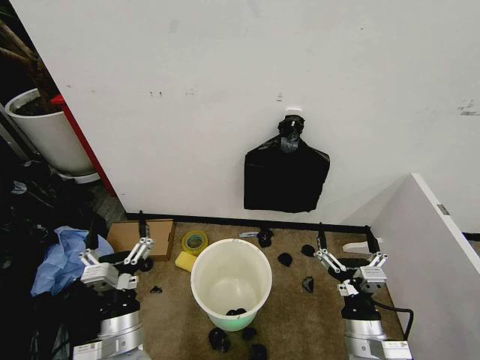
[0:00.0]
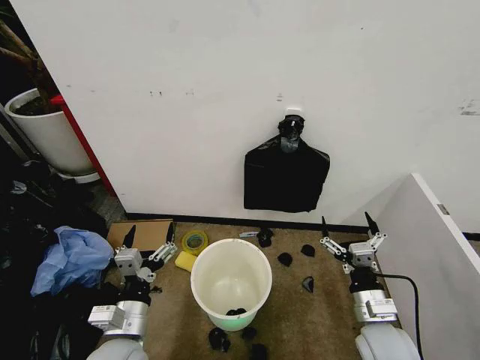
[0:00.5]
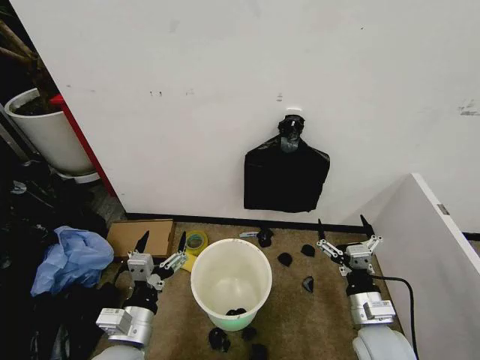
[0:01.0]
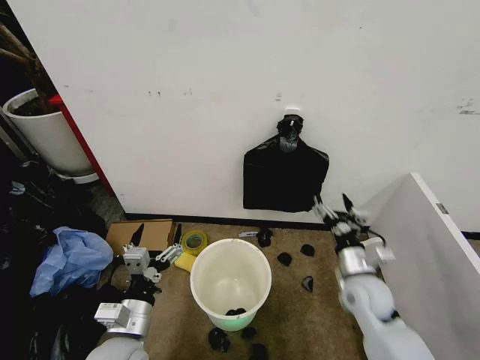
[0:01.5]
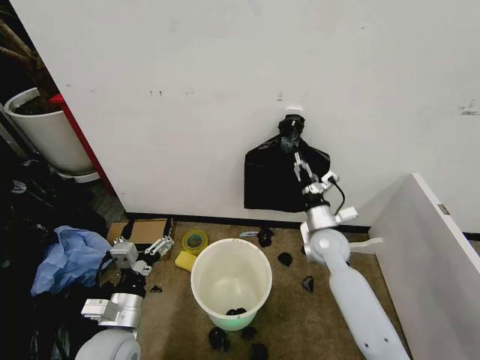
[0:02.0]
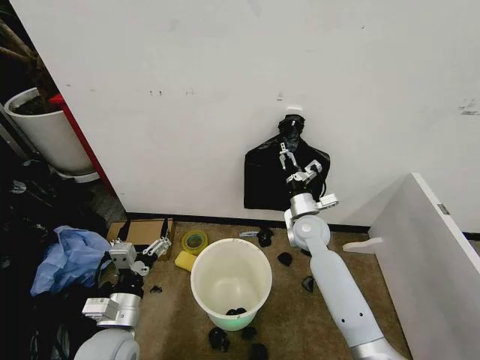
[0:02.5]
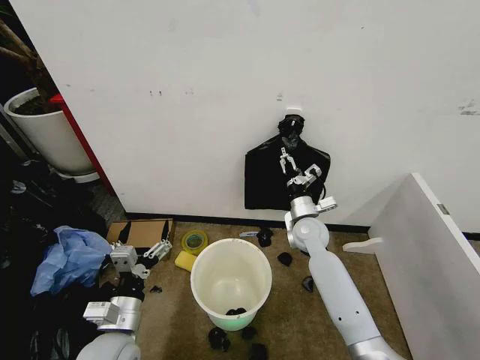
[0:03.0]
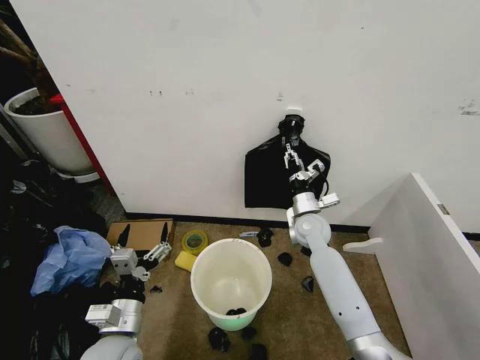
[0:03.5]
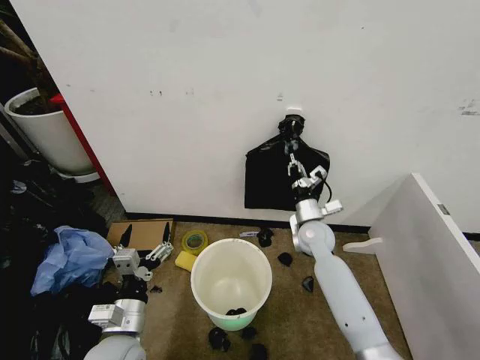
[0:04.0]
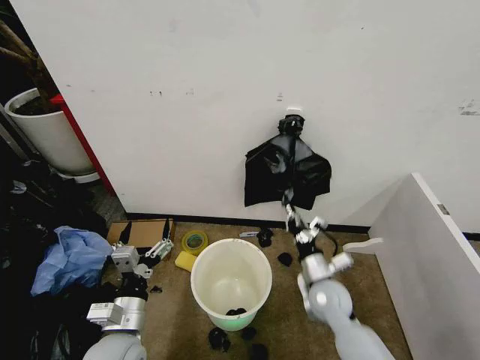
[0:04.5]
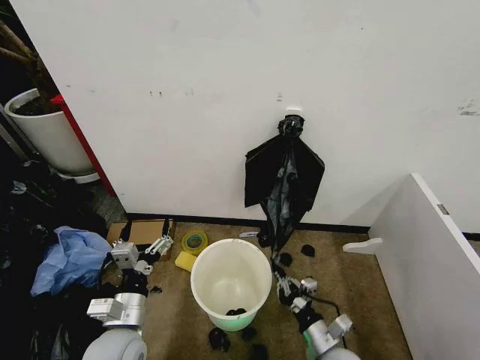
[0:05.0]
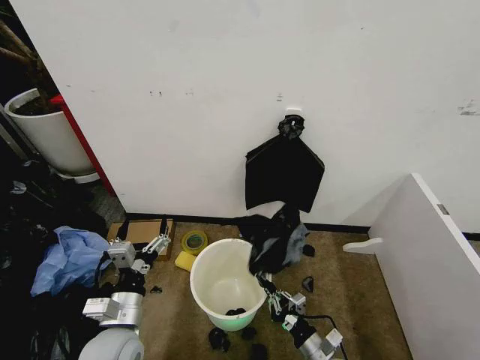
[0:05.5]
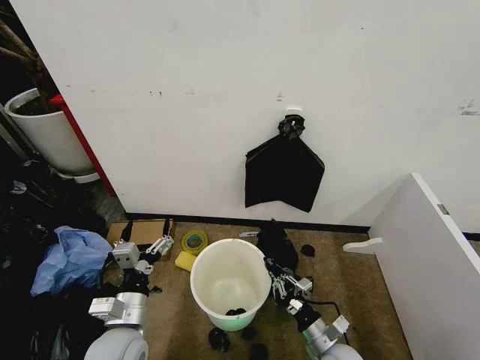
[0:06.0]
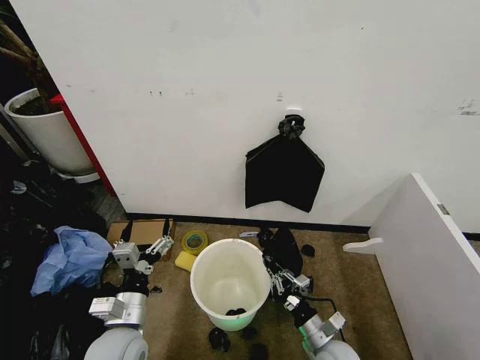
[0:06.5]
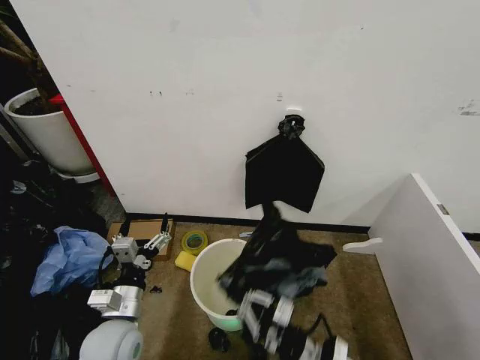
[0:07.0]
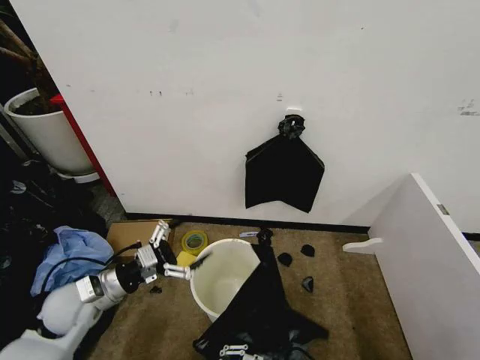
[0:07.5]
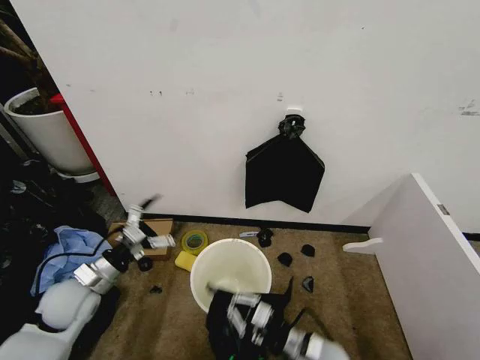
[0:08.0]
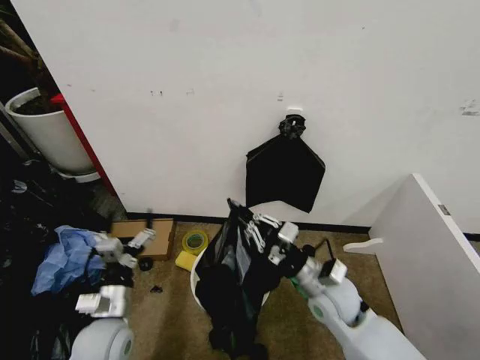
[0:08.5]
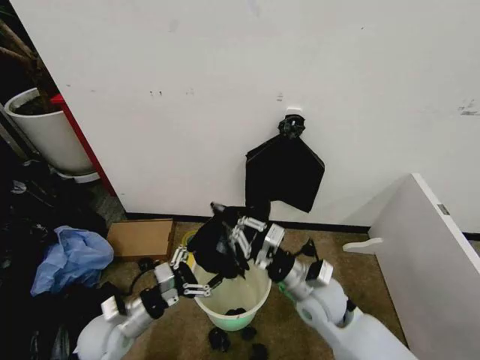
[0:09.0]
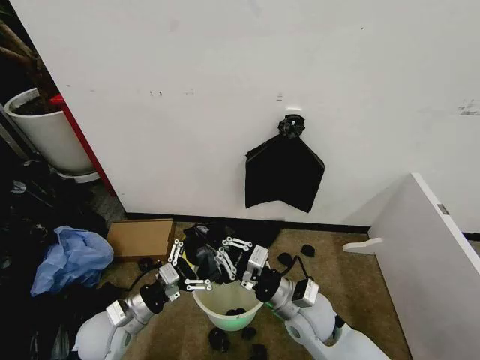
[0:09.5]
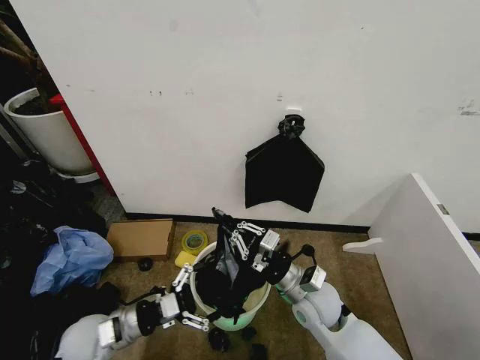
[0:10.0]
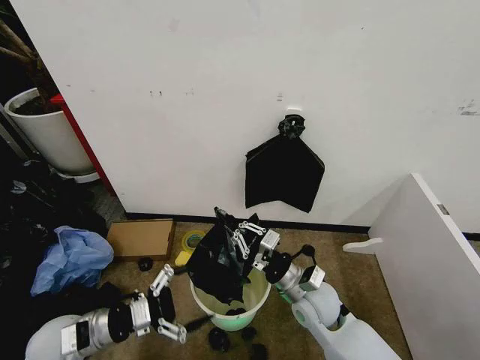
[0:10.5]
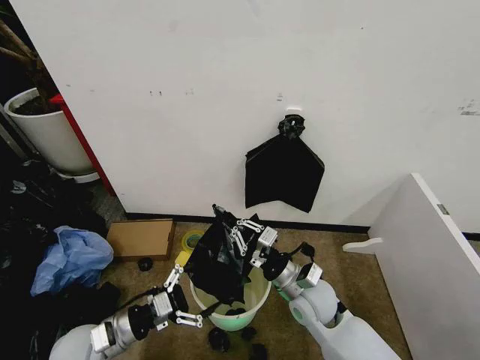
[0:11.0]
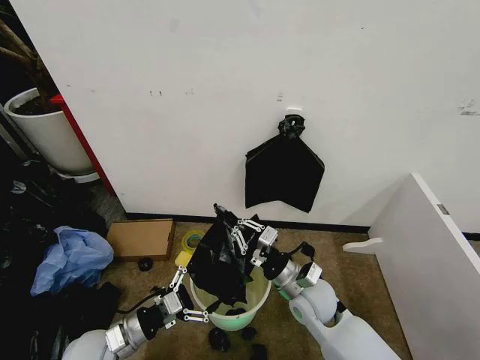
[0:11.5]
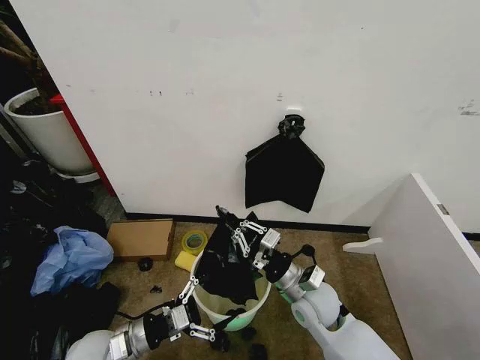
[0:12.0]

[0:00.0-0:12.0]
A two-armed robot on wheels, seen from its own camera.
Task of the whole recording: Place the garbage bag over the trash bin.
0:02.0 to 0:04.0: The right gripper closes.
0:04.0 to 0:06.0: The right gripper is displaced backward and downward by some 30 cm.
0:06.0 to 0:08.0: The left gripper travels to the left and forward by approximately 15 cm. The right gripper swings up and down, approximately 10 cm each way, with 2 reversals.
0:08.0 to 0:10.0: The right gripper moves forward and upward, about 10 cm. Meanwhile the left gripper moves backward, some 5 cm.
0:10.0 to 0:12.0: There are only small adjustments of the grippers.

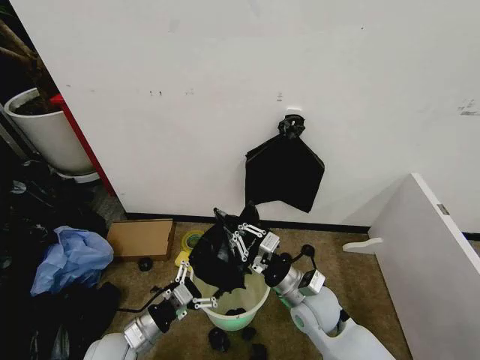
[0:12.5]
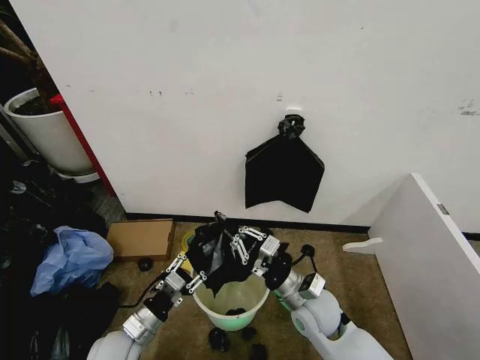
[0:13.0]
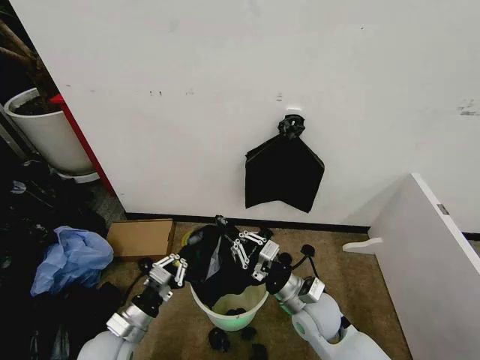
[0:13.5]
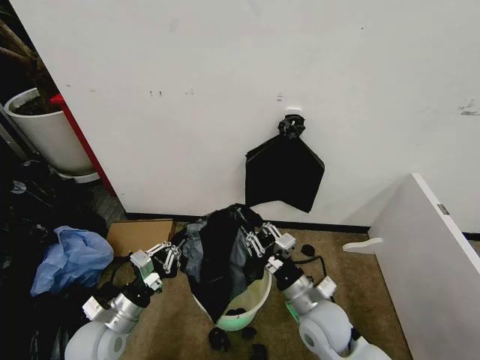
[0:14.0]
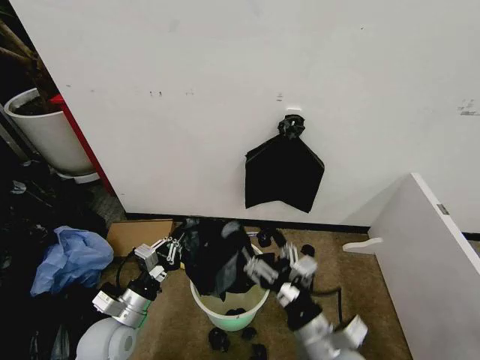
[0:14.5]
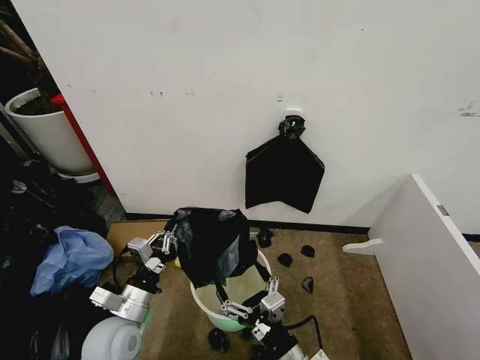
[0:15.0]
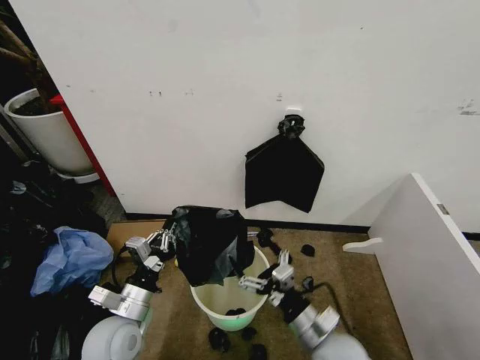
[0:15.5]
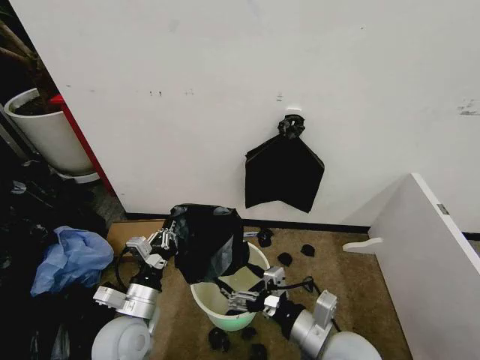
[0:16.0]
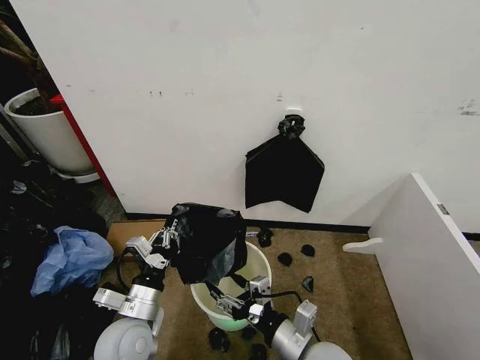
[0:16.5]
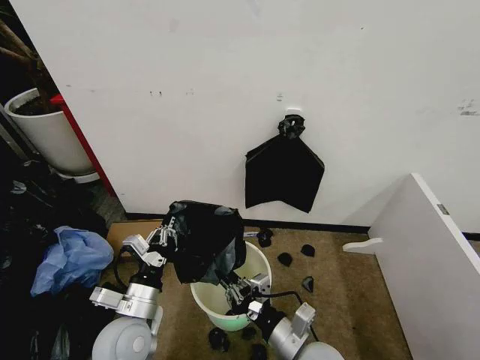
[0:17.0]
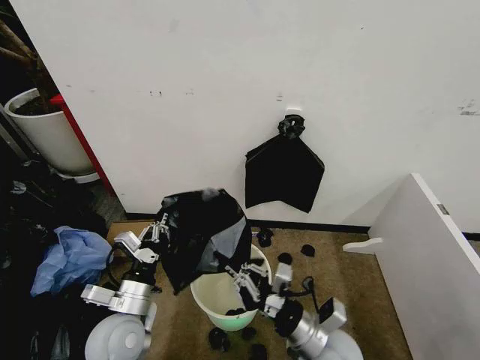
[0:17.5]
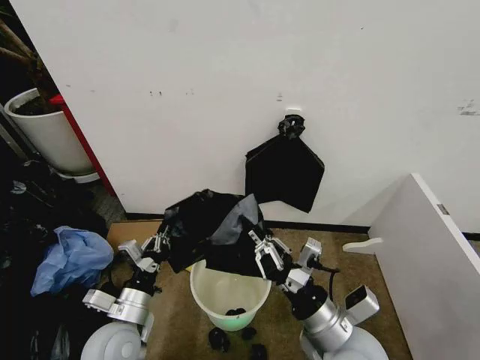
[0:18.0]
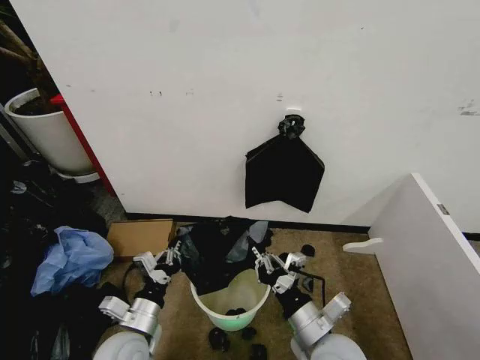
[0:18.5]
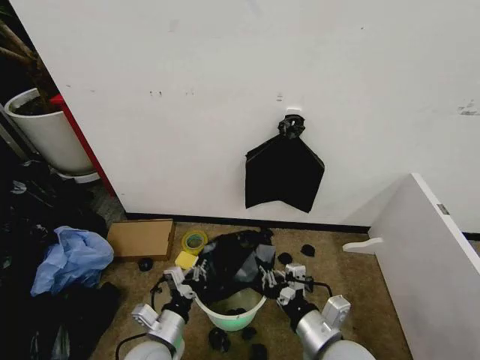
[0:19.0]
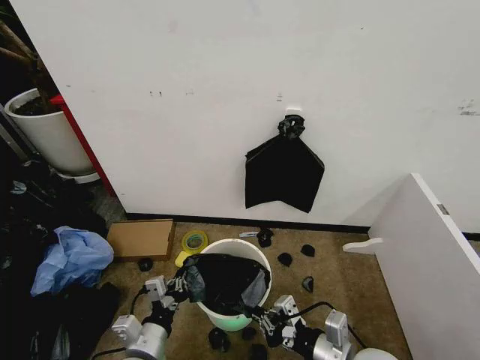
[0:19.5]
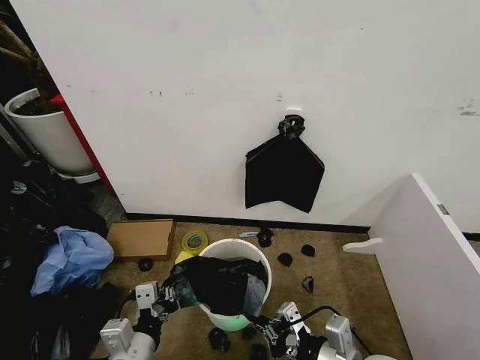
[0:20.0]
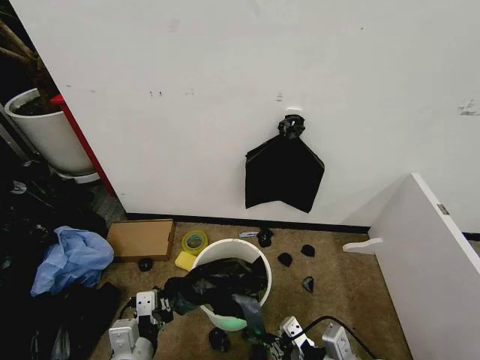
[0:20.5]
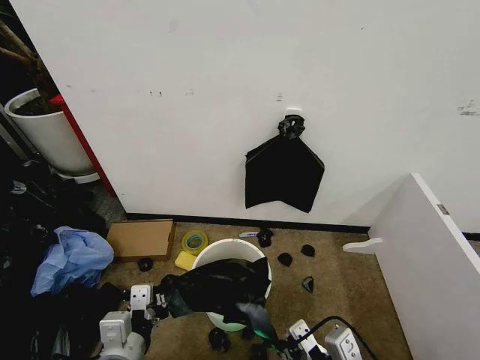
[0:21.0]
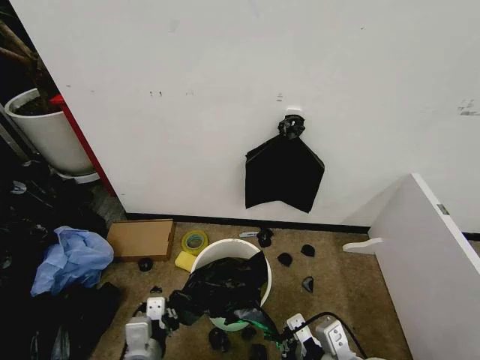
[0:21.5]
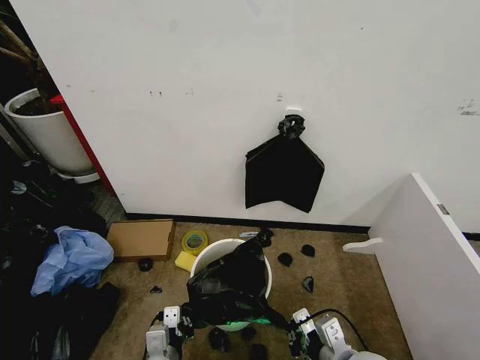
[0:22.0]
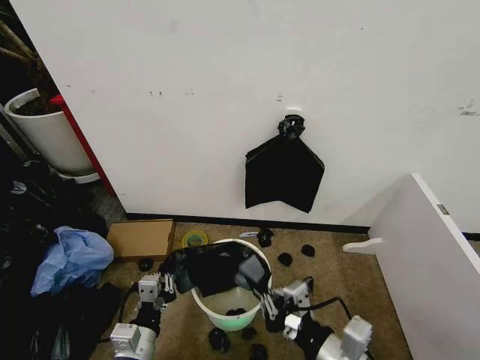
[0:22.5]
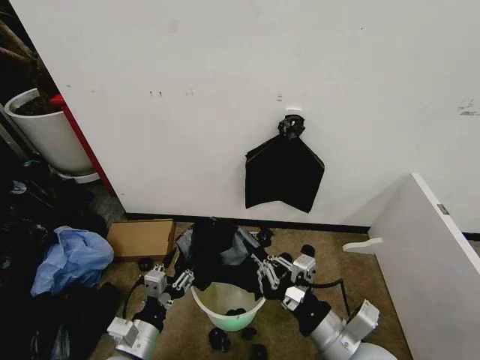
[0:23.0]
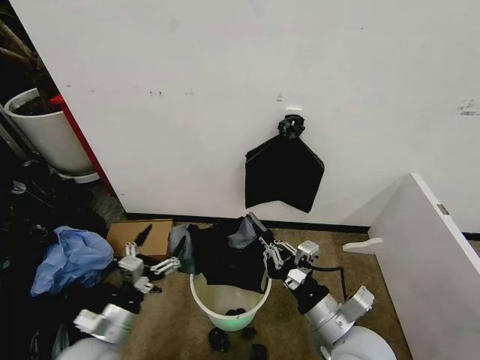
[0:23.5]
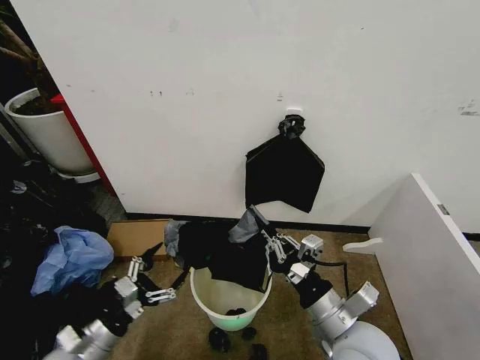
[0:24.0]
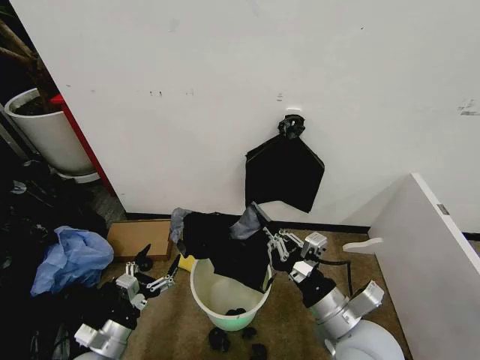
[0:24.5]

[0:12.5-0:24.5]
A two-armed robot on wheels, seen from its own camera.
Task of the whole recording: Place the garbage bag over the trash bin.
0:12.5 to 0:14.5: The left gripper closes. The right gripper moves backward, some 15 cm, and opens.
0:14.5 to 0:16.5: The left gripper shifts by approximately 5 cm, while the right gripper goes backward and returns, approximately 5 cm each way.
0:16.5 to 0:18.5: The right gripper reaches roughly 5 cm upward, then returns, and closes its fingers.
0:18.5 to 0:20.5: The right gripper shifts approximately 5 cm to the right, while the left gripper travels backward by approximately 5 cm.
0:20.5 to 0:22.5: The right gripper goes up and down, roughly 10 cm each way, reversing 2 times.
0:22.5 to 0:24.5: The left gripper moves to the left and downward, about 10 cm, and opens up, while the right gripper shifts some 5 cm forward.

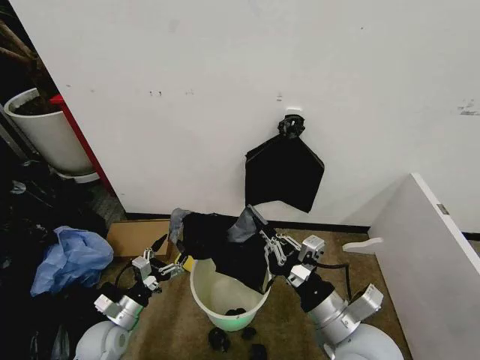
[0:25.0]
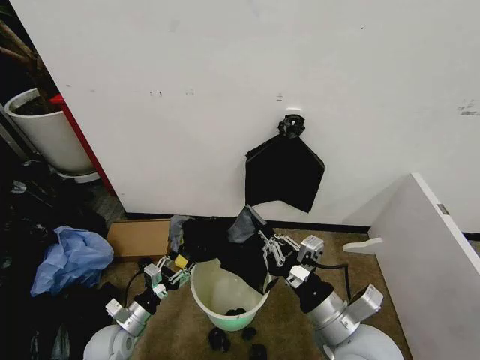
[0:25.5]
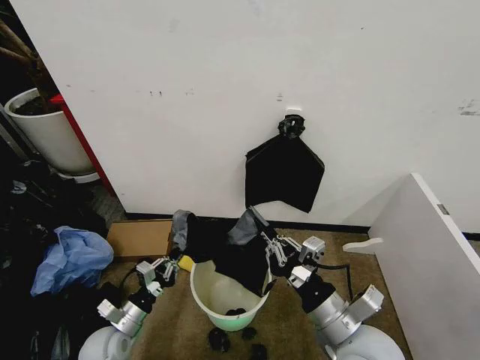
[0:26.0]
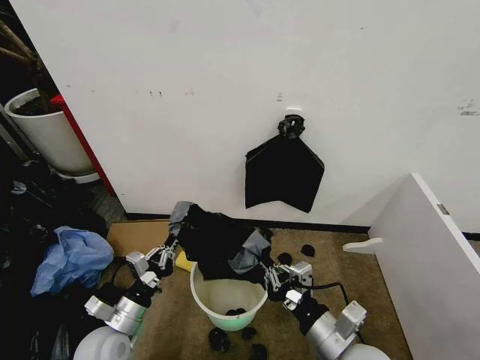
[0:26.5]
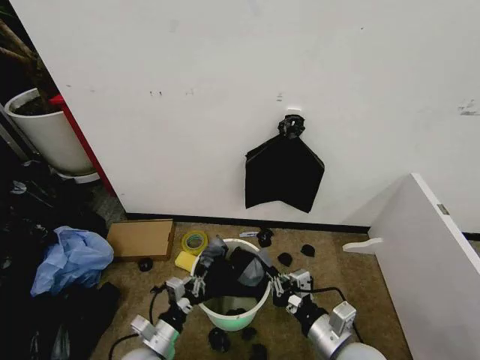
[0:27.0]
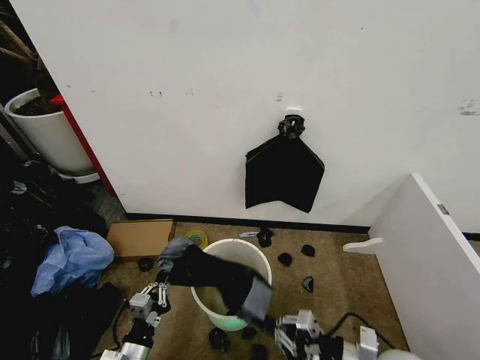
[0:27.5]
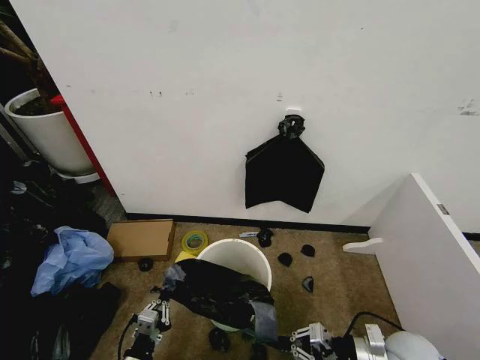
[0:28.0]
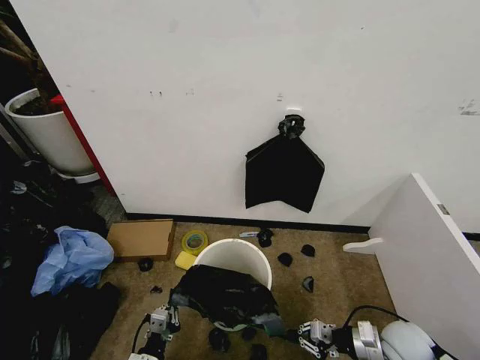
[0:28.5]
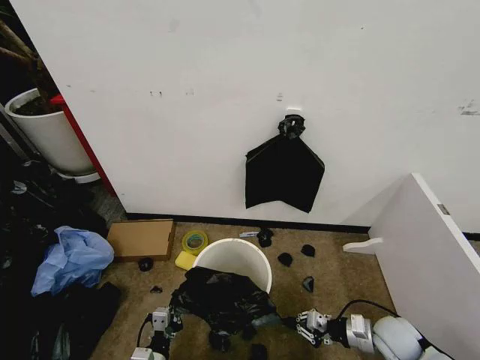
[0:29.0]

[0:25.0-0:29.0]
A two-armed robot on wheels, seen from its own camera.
Task of the whole recording: Place the garbage bag over the trash bin.
0:25.0 to 0:27.0: The left gripper travels to the right and backward by about 10 cm, and closes up; the right gripper moves downward, about 5 cm.
0:27.0 to 0:29.0: The left gripper travels backward and downward by some 10 cm. Meanwhile the right gripper travels to the right, downward and forward by approximately 20 cm.
